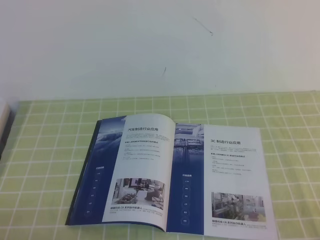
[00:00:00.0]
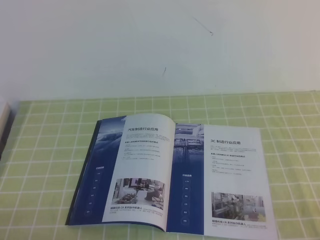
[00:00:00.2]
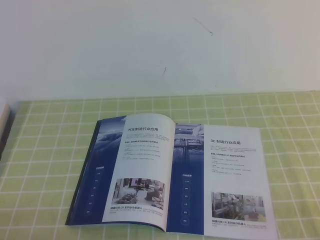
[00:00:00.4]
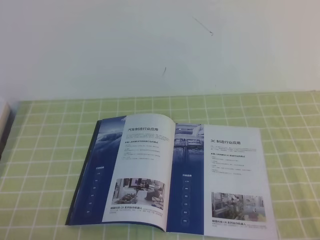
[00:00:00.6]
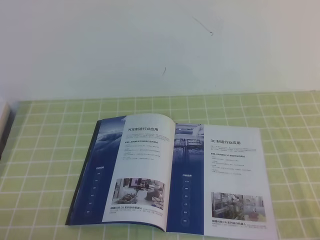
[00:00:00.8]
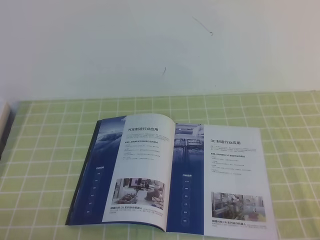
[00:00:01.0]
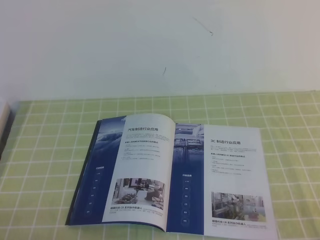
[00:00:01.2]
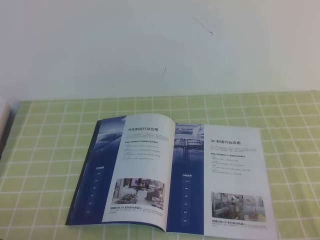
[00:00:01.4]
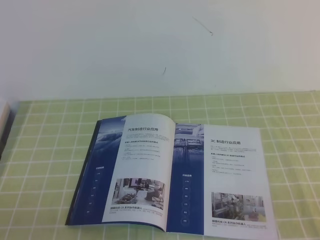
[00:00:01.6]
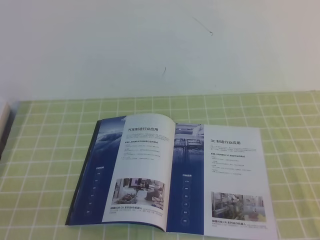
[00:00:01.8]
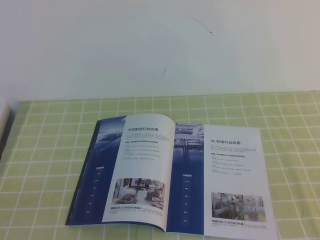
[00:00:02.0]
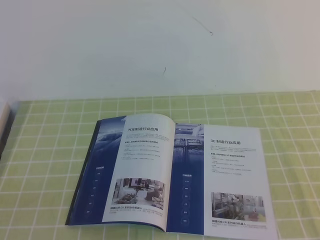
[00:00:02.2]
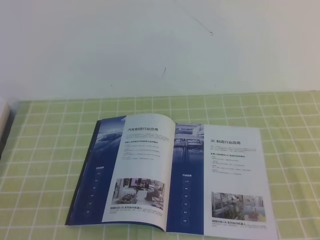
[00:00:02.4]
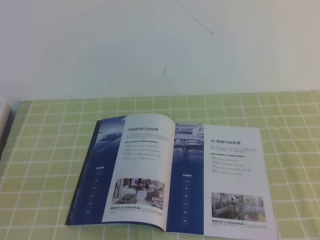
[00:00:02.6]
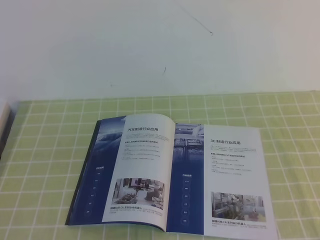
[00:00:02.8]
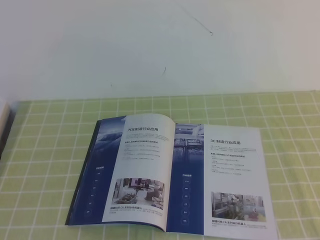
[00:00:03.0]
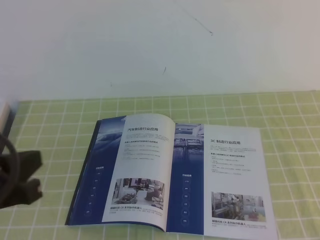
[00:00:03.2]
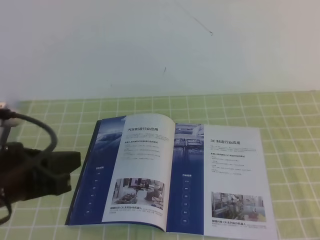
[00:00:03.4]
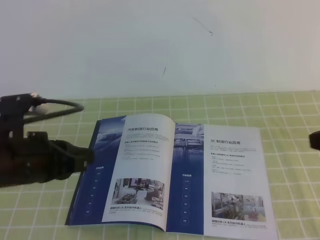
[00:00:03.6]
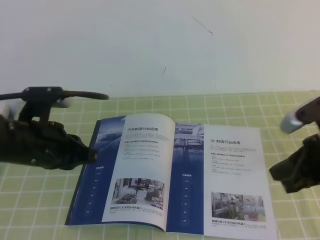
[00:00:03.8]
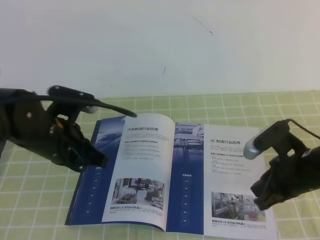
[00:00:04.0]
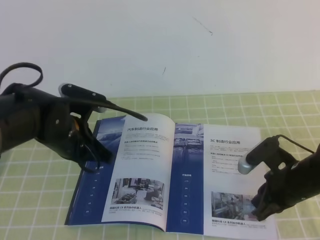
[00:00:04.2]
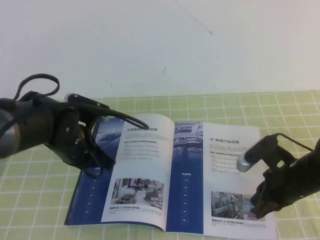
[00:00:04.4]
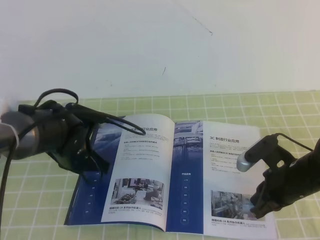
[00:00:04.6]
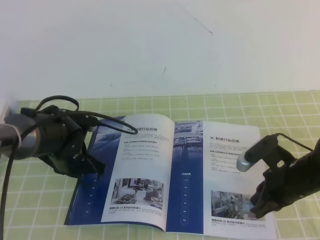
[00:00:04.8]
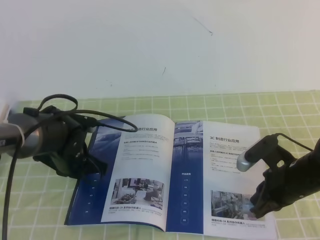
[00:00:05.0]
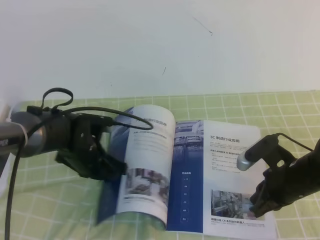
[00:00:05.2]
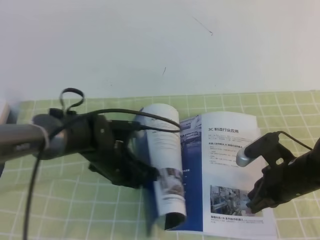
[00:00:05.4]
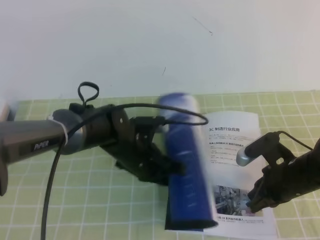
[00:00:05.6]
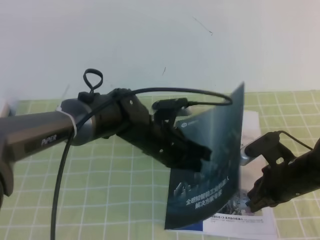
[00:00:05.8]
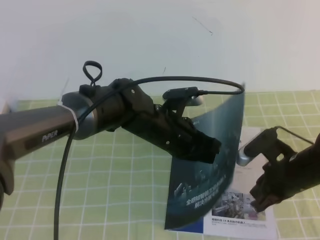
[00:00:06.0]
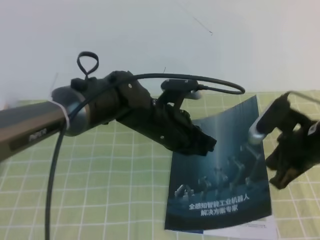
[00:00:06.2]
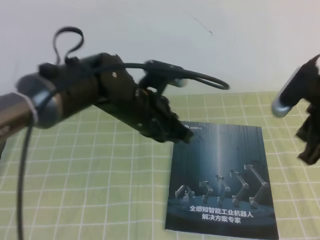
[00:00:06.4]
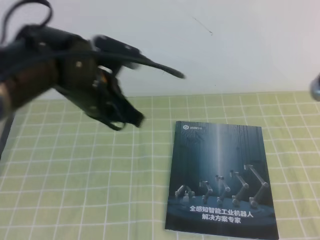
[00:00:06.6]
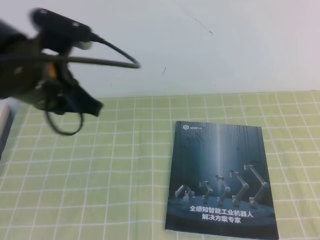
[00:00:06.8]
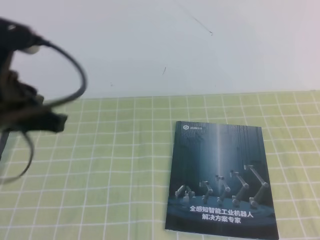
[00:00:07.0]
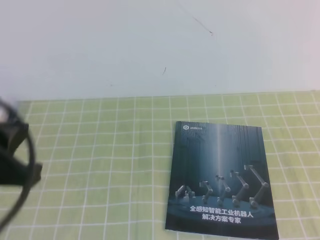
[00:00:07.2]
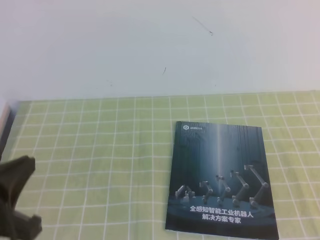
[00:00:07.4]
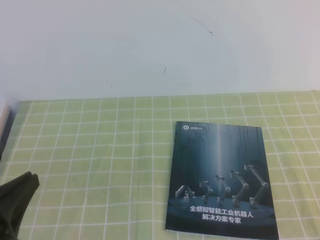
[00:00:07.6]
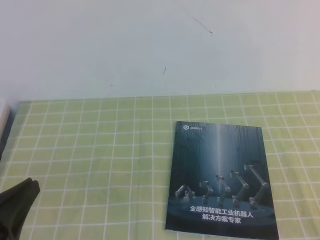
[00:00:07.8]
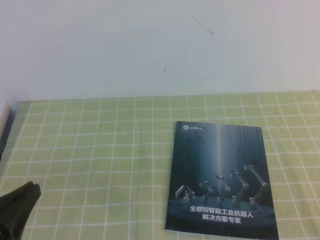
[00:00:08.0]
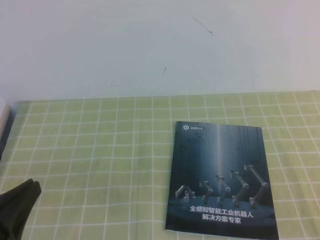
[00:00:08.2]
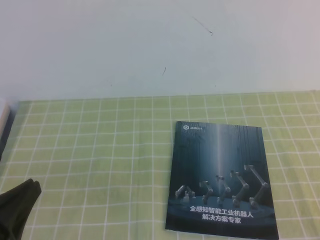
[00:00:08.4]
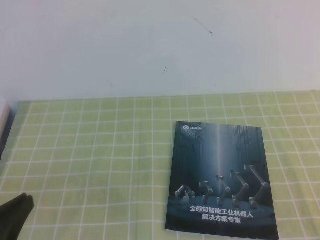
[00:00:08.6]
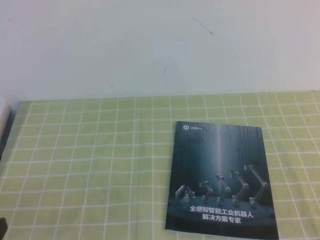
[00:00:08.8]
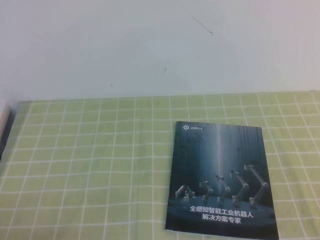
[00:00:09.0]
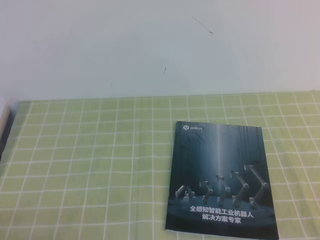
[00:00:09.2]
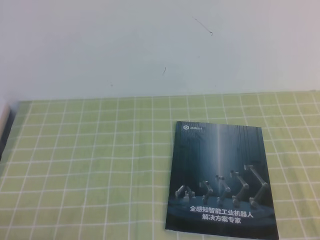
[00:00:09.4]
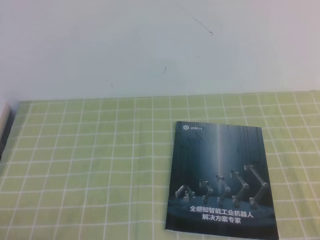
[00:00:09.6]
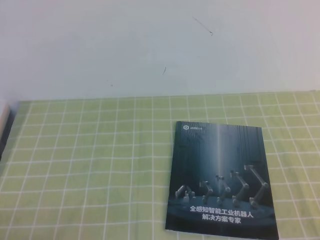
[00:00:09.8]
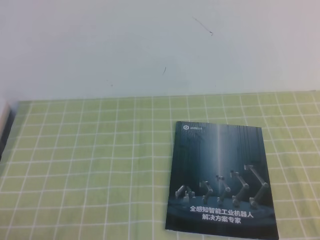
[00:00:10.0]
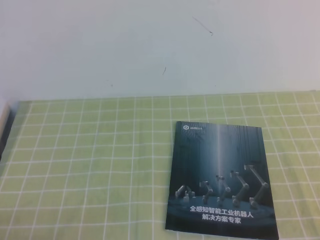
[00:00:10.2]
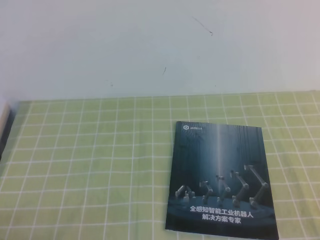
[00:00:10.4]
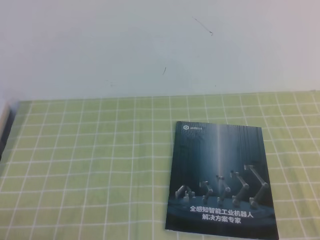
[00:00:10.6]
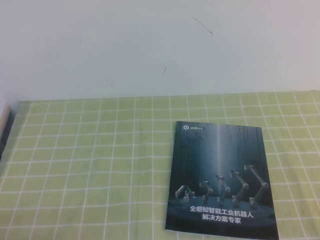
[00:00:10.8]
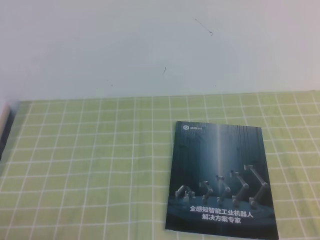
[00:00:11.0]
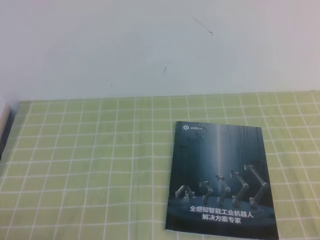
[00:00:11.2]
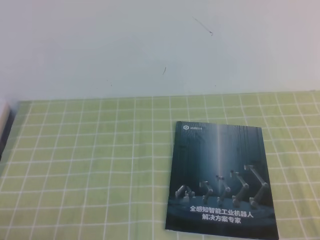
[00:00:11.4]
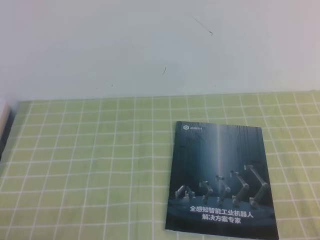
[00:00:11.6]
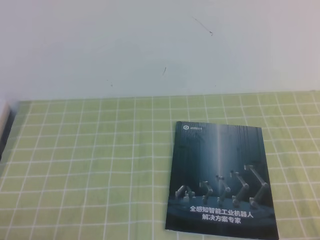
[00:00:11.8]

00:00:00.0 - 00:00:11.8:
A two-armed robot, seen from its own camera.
Task of the whole recording: on the green tablecloth, hold the book with one hand and close it with the other.
Step, 00:00:00.0 - 00:00:11.8: Close the open book.
00:00:00.0 - 00:00:01.4: Neither gripper changes place.
00:00:03.0 - 00:00:04.4: The right gripper goes about 35 cm downward, forward and to the left. Meanwhile the left gripper is displaced forward, downward and to the right by approximately 30 cm.
00:00:04.4 - 00:00:06.0: The left gripper shifts some 15 cm to the right.
00:00:06.0 - 00:00:07.4: The right gripper is displaced backward, upward and to the right by about 25 cm, while the left gripper shifts about 30 cm backward, to the left and upward.
00:00:07.4 - 00:00:08.8: The left gripper shifts about 10 cm downward and backward.
